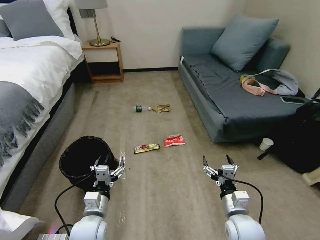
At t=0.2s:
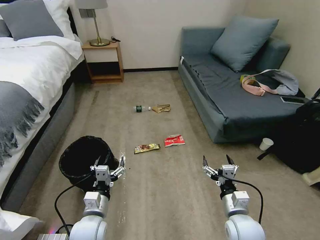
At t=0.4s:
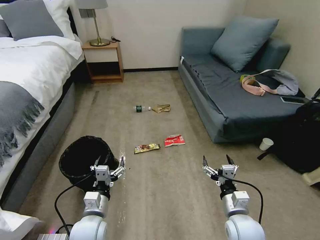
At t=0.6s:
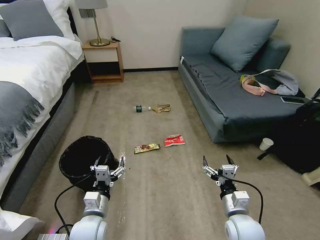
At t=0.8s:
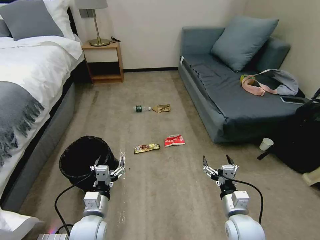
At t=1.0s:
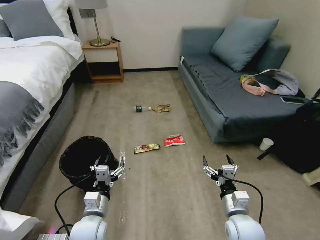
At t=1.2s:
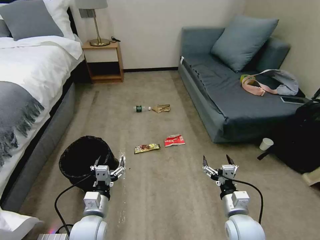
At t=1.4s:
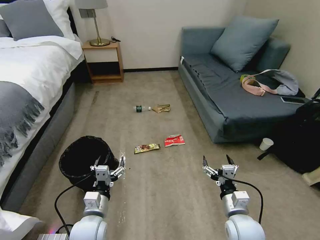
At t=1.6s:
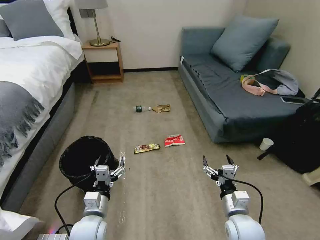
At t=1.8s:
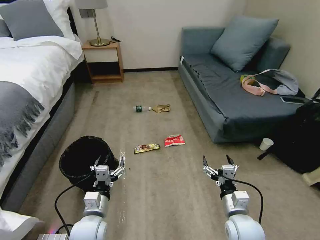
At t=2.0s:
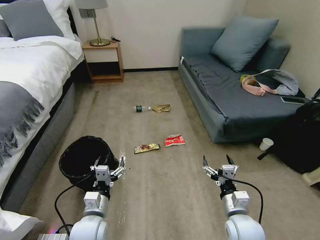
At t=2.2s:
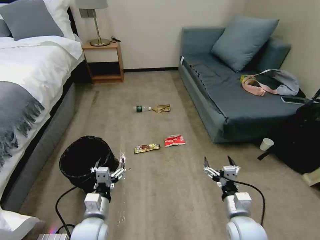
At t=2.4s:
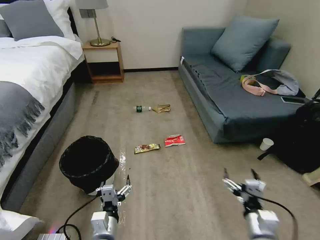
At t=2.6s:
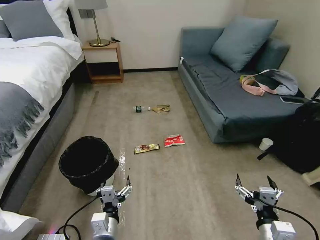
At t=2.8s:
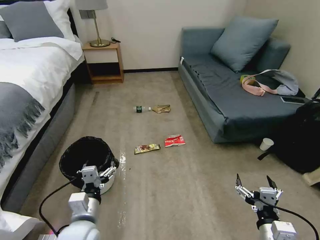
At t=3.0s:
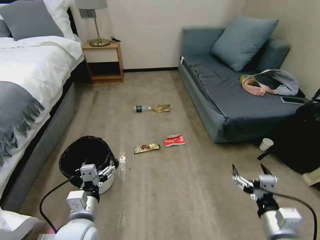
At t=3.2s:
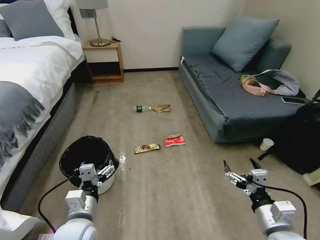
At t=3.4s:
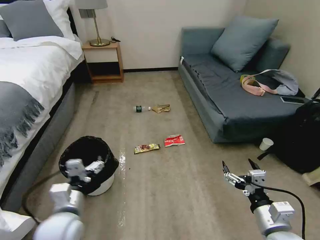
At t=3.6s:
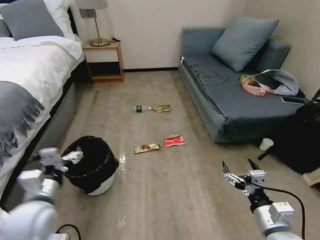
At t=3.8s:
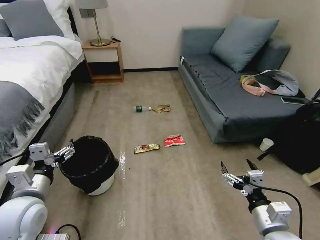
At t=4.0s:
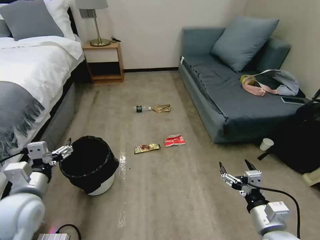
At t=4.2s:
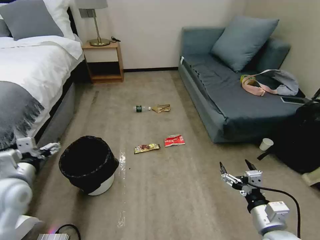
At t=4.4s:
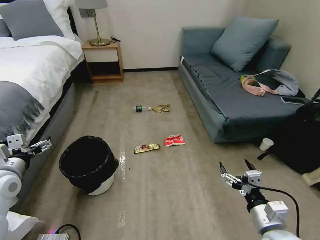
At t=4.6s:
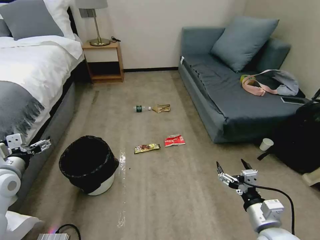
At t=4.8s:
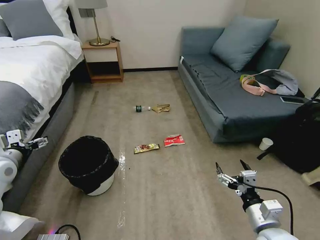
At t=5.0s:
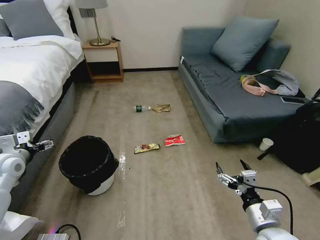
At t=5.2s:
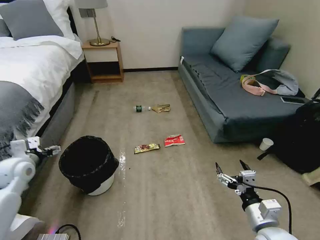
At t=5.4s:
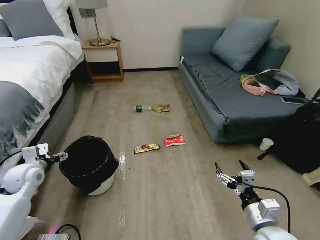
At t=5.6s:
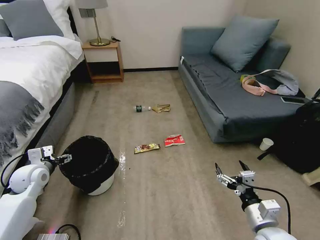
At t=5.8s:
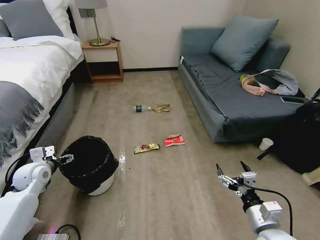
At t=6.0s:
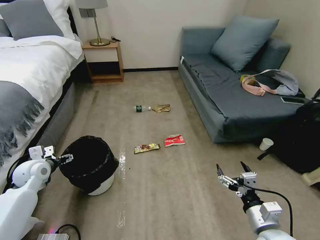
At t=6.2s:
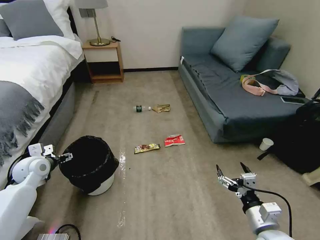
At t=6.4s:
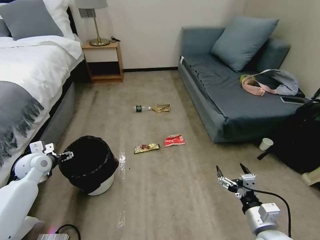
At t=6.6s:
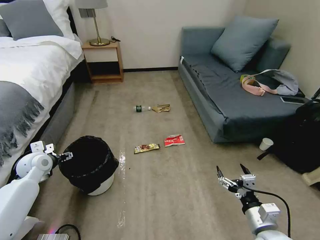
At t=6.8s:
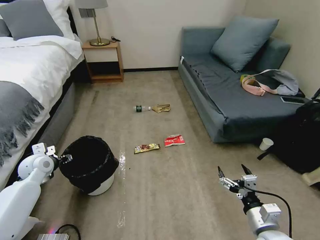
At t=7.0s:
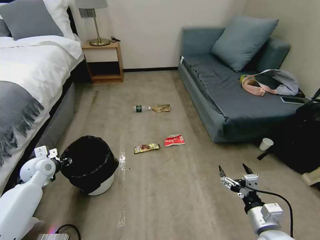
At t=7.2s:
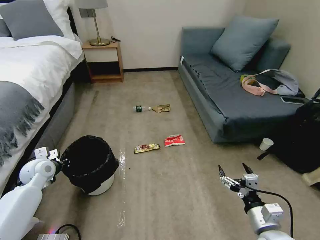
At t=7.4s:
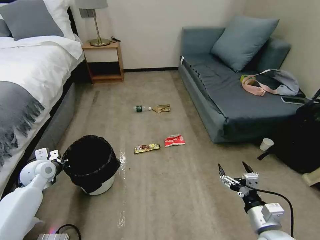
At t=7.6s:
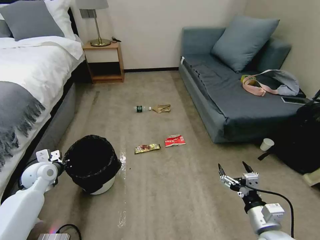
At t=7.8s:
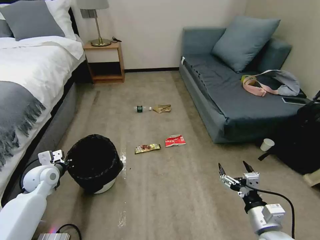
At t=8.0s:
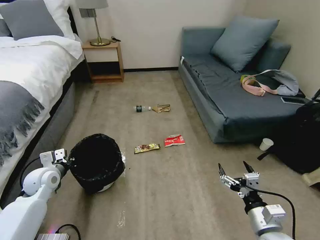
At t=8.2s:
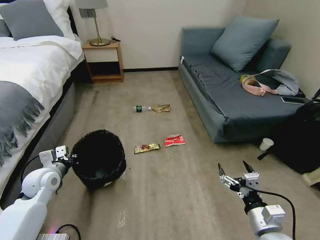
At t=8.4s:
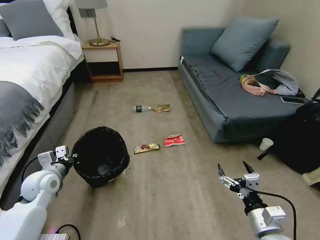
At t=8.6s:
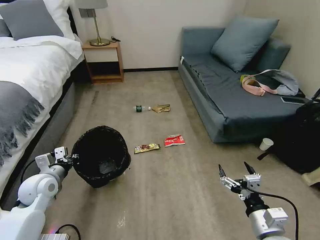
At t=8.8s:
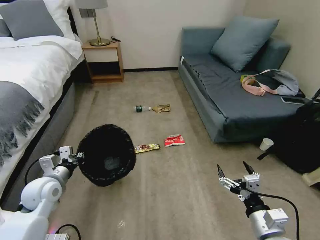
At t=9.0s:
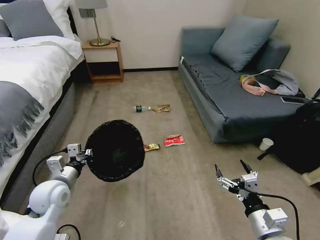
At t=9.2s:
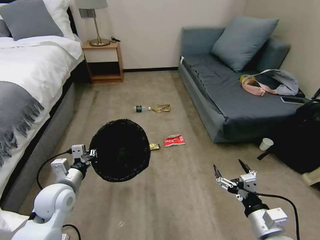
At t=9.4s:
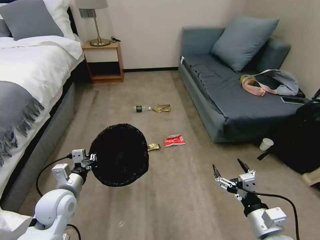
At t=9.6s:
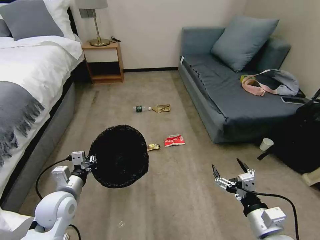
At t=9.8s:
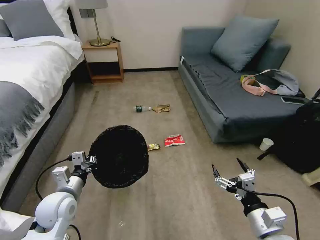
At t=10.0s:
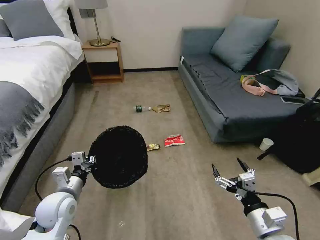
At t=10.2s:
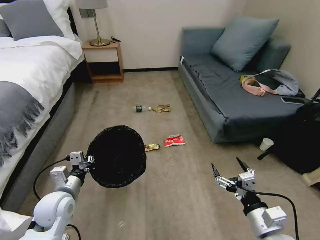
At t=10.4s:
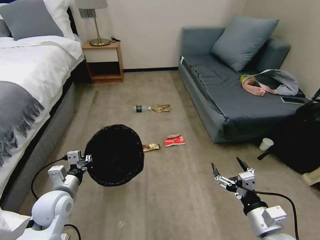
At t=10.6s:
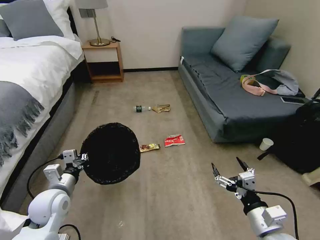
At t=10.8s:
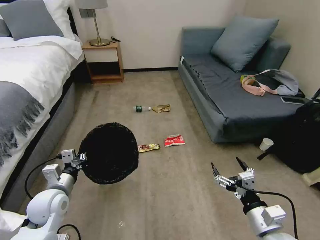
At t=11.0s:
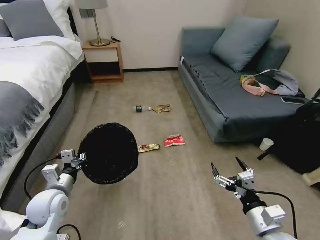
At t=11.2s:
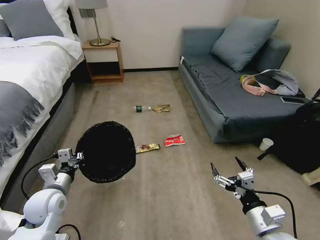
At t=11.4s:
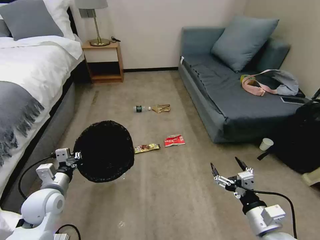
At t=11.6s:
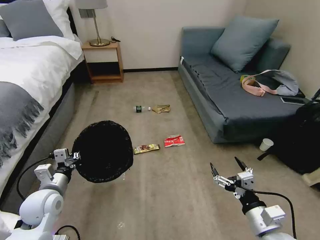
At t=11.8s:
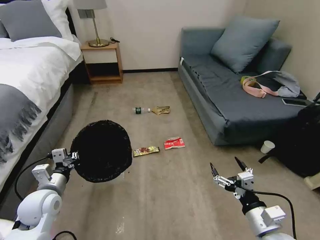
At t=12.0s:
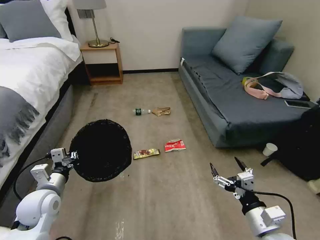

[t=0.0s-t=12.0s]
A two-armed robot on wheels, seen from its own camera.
Task of the whole recording: Pick up the trash bin, then pick up the garbage on the floor and place it into the trash bin.
t=1.6s to t=3.0s: The right gripper moves upward, backward and to the right, about 10 cm; the left gripper goes roughly 5 cm upward.
t=3.0s to t=4.4s: The left gripper heads to the left, upward and forward, covering approximately 25 cm.
t=4.4s to t=6.0s: The left gripper goes some 10 cm forward and downward.
t=6.0s to t=7.6s: The left gripper closes.
t=7.6s to t=9.0s: The left gripper is displaced to the right and backward by approximately 15 cm.
t=9.0s to t=12.0s: The grippers stay close to where they were, moving slightly.

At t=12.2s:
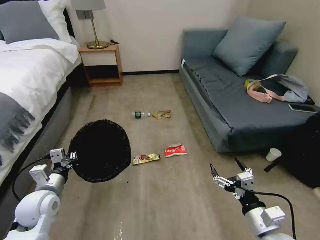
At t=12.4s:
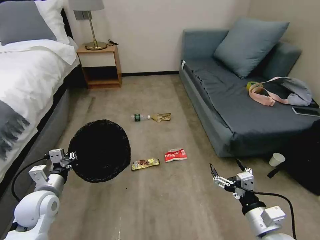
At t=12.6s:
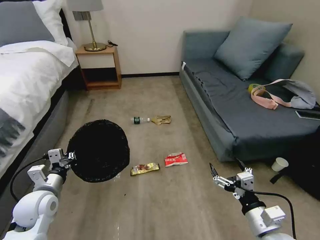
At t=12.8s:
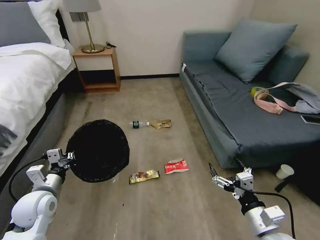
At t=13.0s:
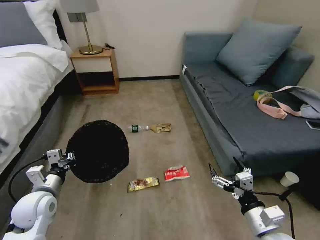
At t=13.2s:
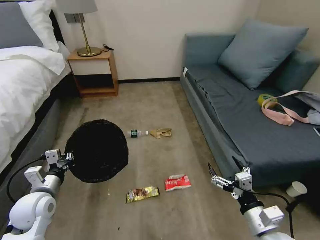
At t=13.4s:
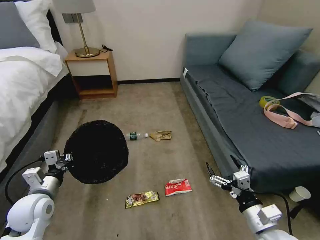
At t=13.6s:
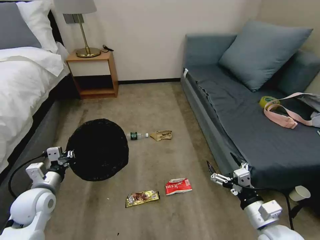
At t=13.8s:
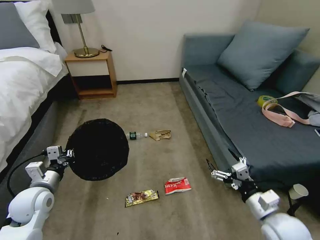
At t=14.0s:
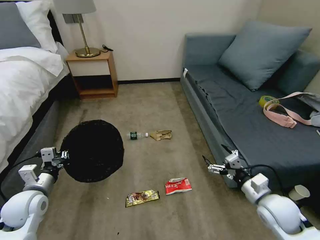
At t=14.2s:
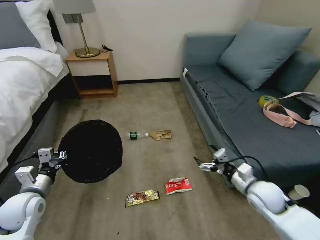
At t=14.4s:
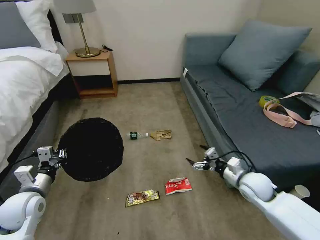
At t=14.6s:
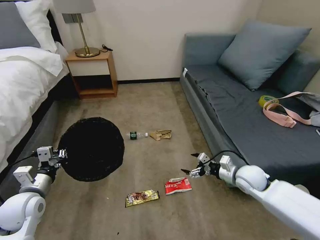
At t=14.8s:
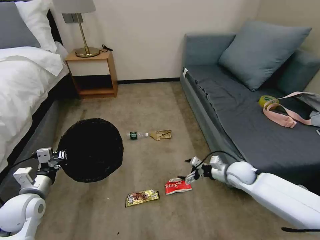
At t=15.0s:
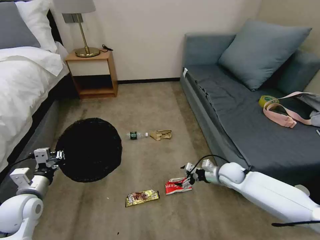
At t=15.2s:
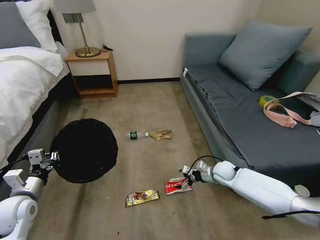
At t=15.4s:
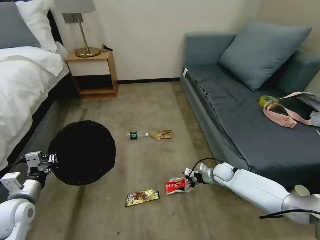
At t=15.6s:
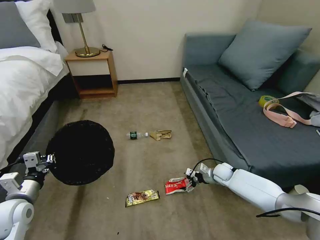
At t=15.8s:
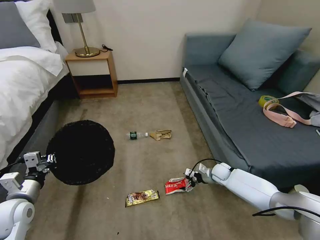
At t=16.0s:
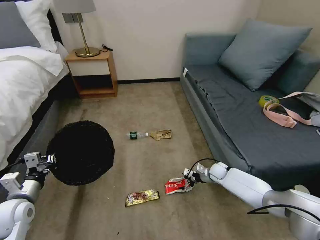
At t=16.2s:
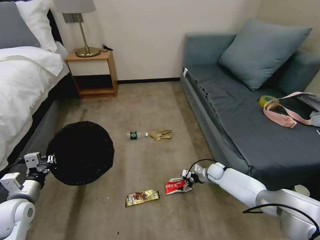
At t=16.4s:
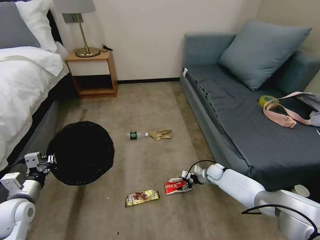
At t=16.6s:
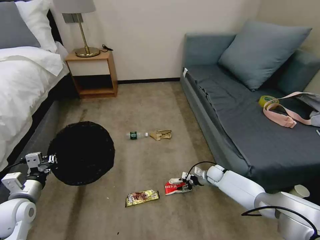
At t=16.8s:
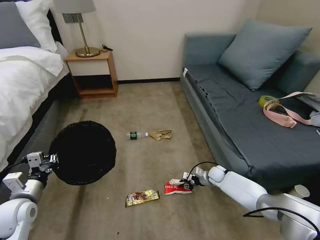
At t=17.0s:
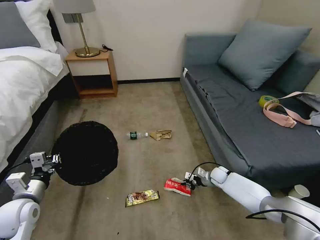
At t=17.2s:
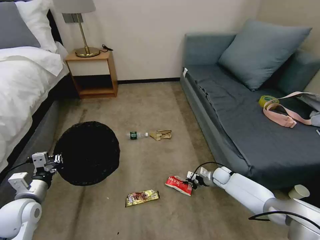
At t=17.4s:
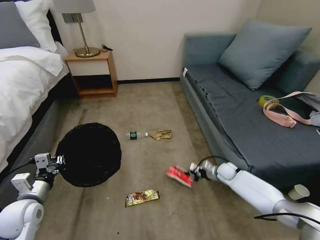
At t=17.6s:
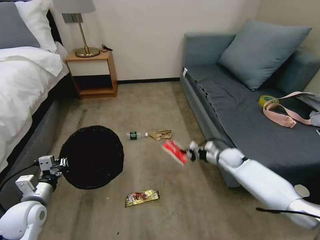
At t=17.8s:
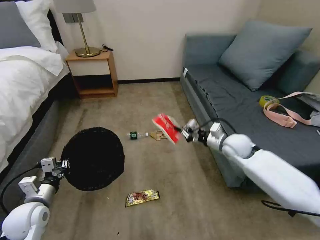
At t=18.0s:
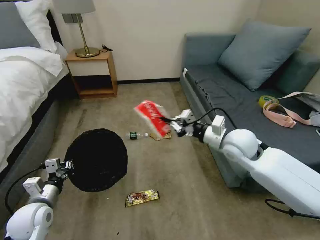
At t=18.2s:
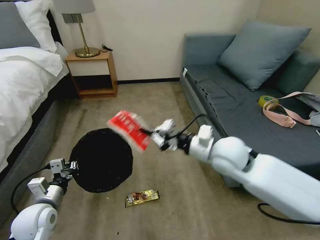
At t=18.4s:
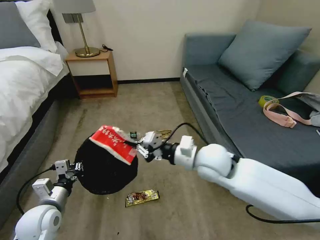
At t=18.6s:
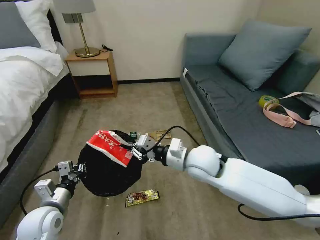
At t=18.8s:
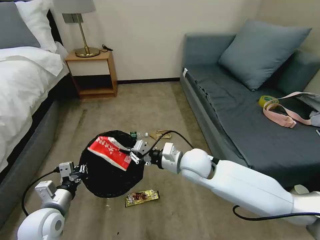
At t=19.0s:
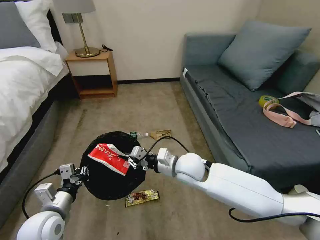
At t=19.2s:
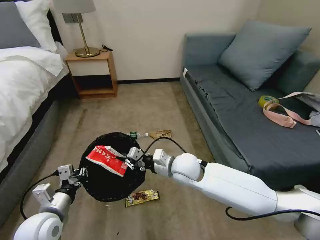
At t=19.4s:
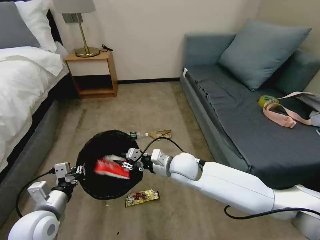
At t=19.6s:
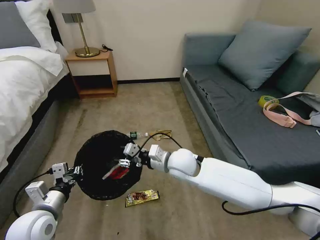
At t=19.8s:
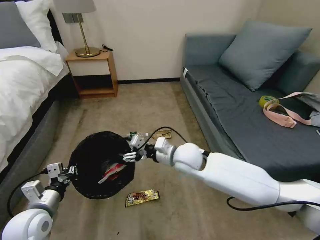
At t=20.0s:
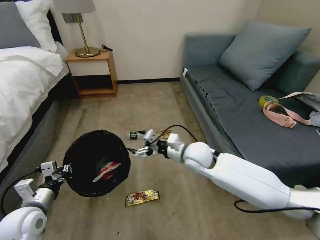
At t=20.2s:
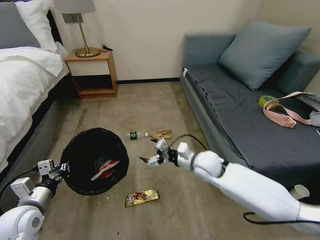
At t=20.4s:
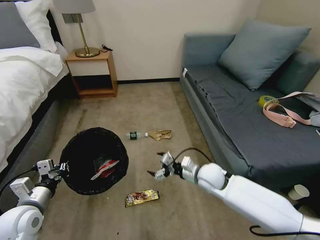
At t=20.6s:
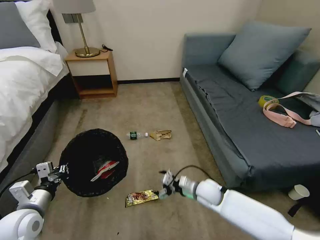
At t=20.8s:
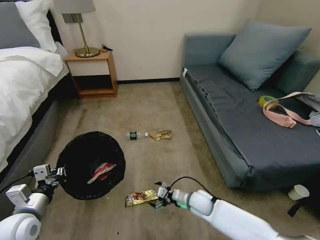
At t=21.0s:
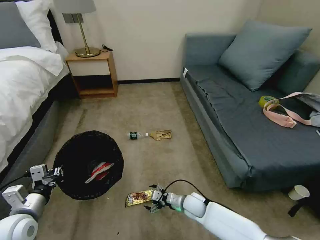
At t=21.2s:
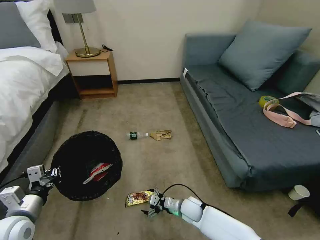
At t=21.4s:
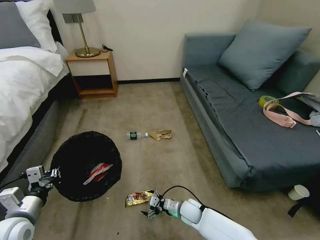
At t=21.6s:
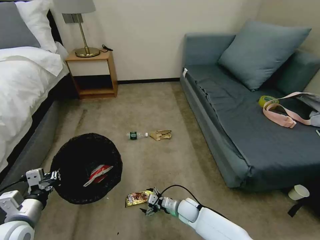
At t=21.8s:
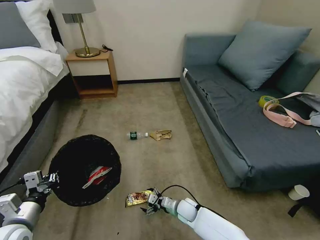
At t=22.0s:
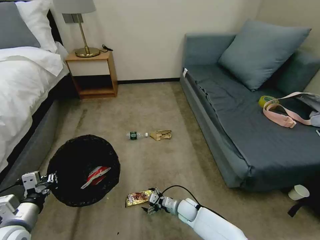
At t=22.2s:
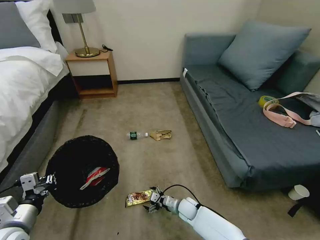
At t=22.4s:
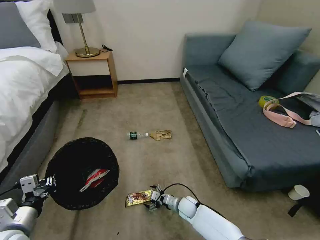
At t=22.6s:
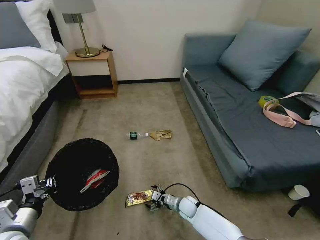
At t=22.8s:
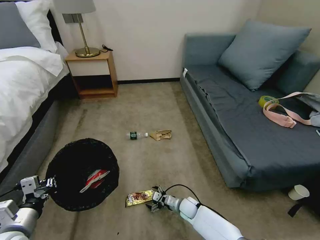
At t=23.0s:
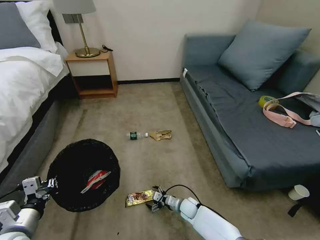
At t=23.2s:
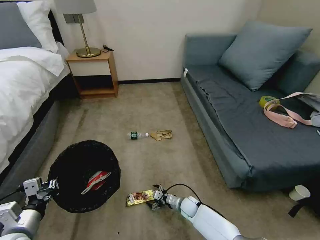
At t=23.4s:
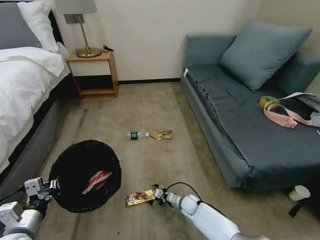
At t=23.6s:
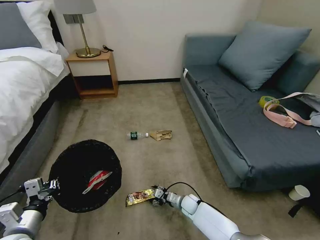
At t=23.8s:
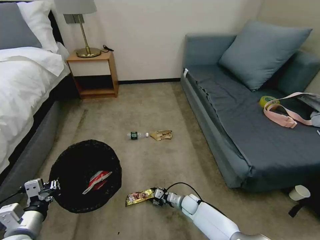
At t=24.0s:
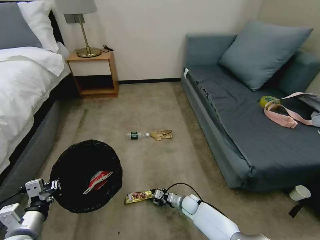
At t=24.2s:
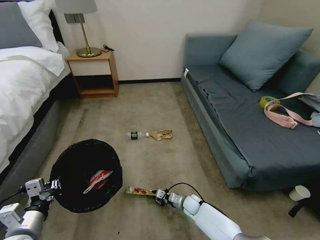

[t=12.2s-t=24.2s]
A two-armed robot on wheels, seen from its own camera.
Task of the whole recording: Pick up the trash bin, then pick up the garbage on the floor and place it into the trash bin.
t=12.2s to t=13.8s: The right gripper moves about 5 cm.
t=13.8s to t=15.2s: The right gripper travels forward and downward by roughly 25 cm.
t=15.2s to t=16.6s: The right gripper shifts about 10 cm downward, and closes up.
t=16.6s to t=18.2s: The left gripper is displaced to the right by approximately 5 cm; the right gripper is displaced upward by about 35 cm, and closes its fingers.
t=18.2s to t=19.8s: The right gripper is displaced to the left and downward by some 10 cm, and opens its fingers.
t=19.8s to t=21.2s: The right gripper moves downward, about 25 cm.
t=21.2s to t=22.6s: The right gripper goes roughly 5 cm downward.
t=22.6s to t=24.2s: The right gripper closes its fingers.
